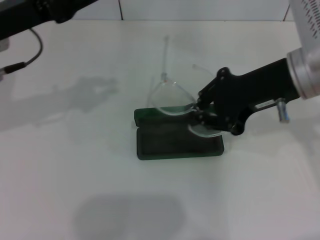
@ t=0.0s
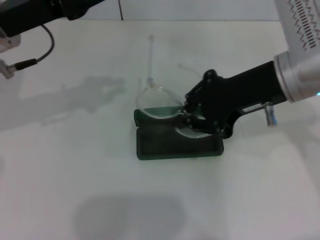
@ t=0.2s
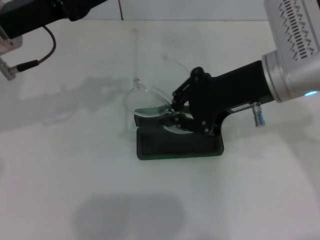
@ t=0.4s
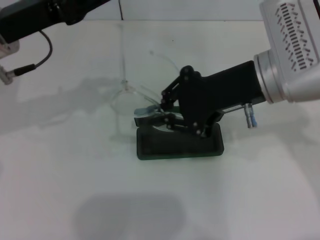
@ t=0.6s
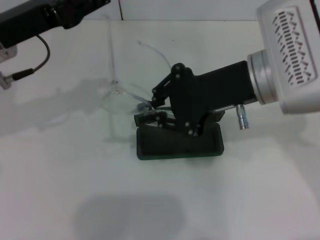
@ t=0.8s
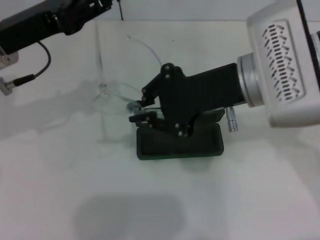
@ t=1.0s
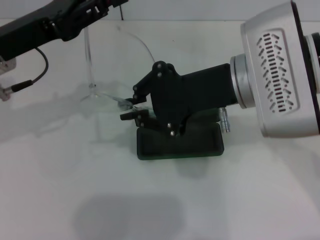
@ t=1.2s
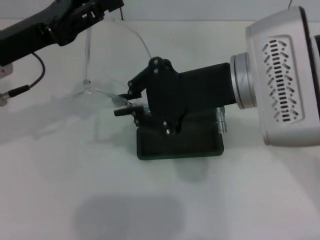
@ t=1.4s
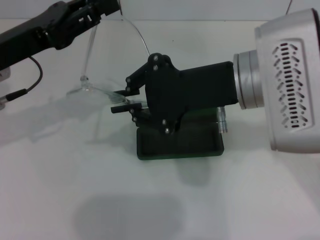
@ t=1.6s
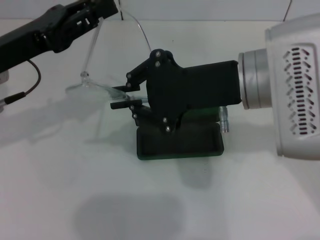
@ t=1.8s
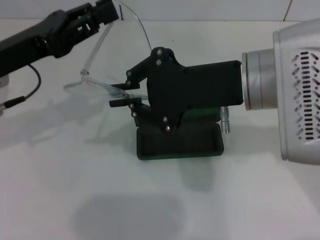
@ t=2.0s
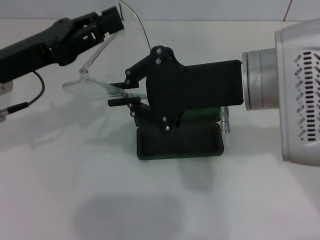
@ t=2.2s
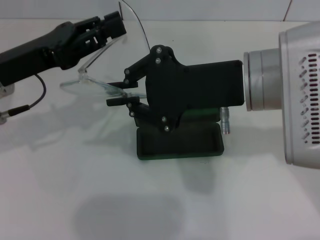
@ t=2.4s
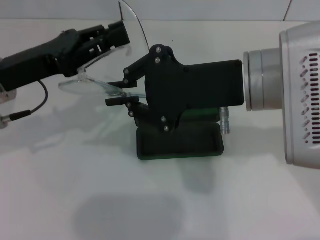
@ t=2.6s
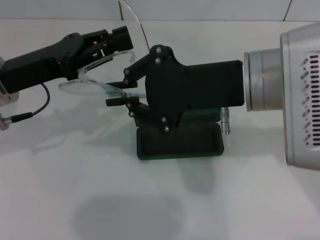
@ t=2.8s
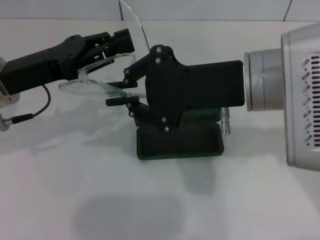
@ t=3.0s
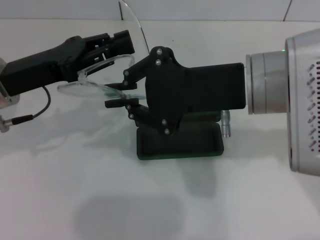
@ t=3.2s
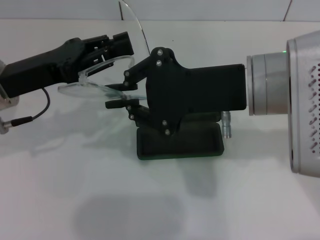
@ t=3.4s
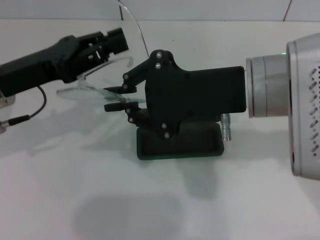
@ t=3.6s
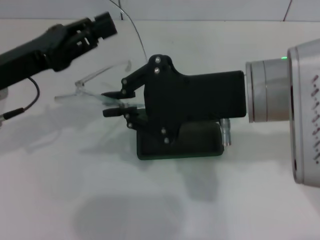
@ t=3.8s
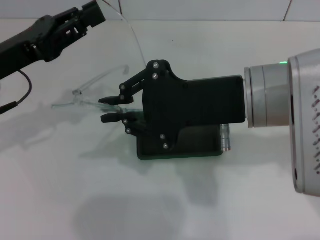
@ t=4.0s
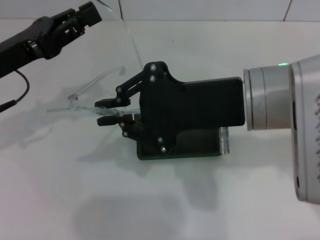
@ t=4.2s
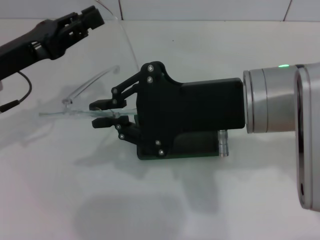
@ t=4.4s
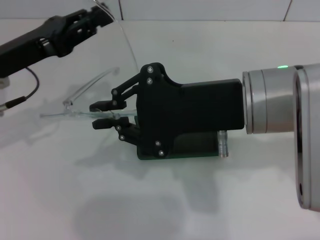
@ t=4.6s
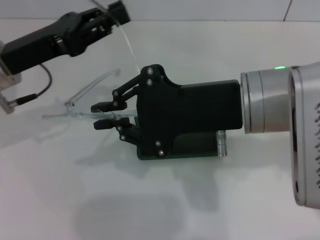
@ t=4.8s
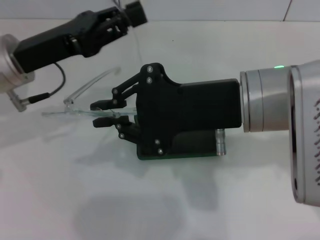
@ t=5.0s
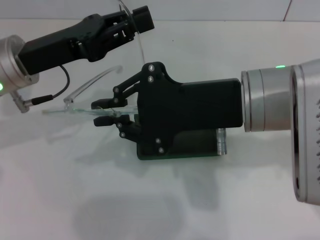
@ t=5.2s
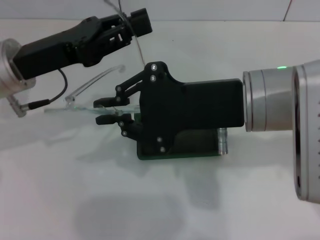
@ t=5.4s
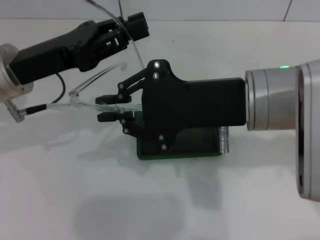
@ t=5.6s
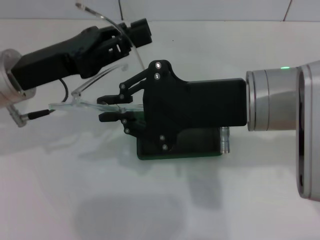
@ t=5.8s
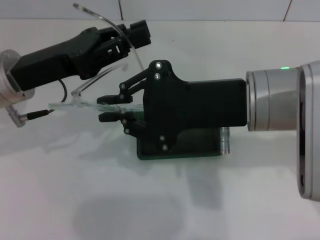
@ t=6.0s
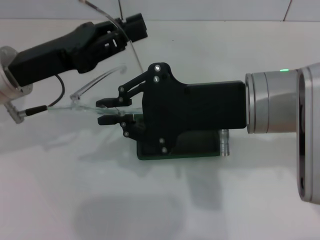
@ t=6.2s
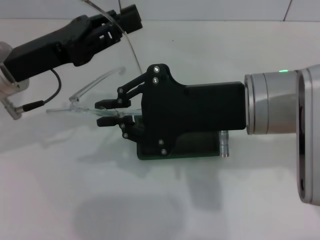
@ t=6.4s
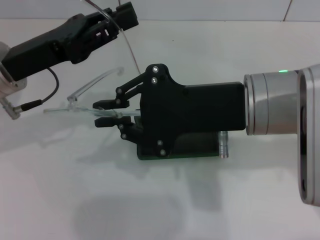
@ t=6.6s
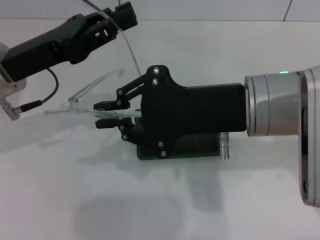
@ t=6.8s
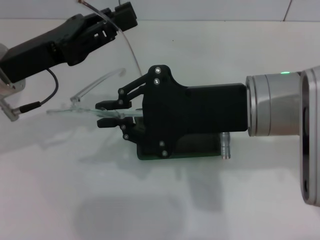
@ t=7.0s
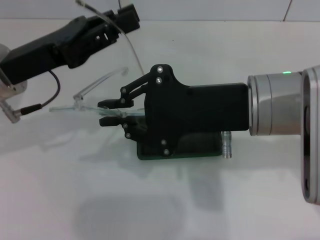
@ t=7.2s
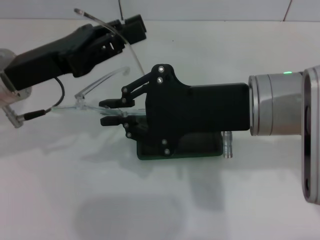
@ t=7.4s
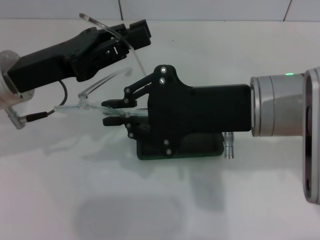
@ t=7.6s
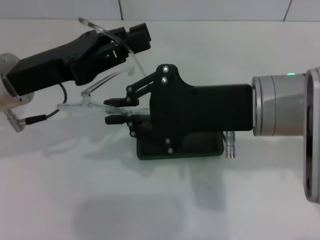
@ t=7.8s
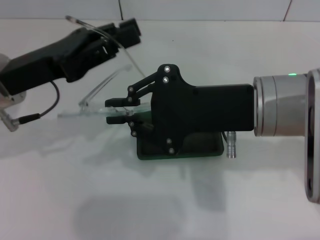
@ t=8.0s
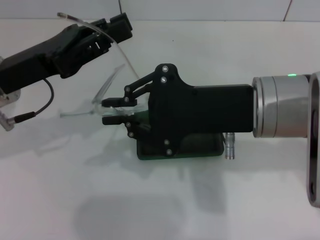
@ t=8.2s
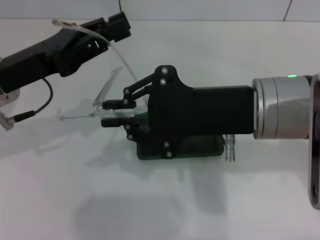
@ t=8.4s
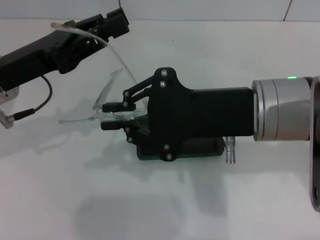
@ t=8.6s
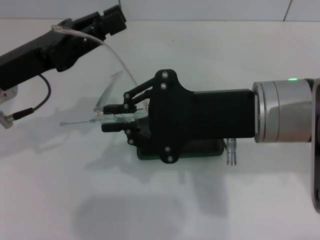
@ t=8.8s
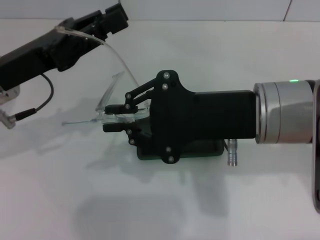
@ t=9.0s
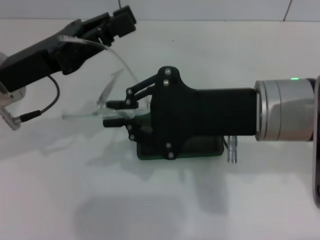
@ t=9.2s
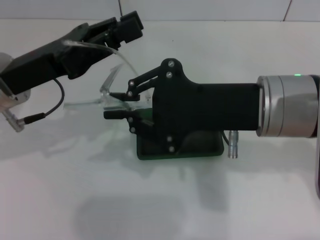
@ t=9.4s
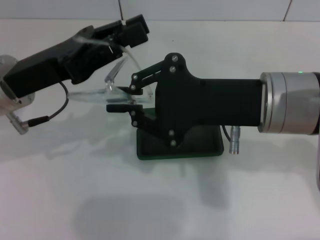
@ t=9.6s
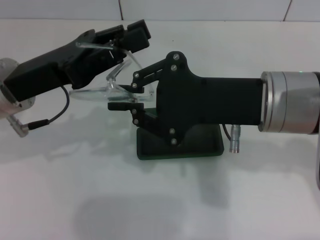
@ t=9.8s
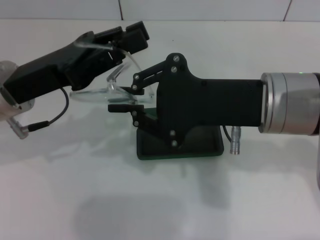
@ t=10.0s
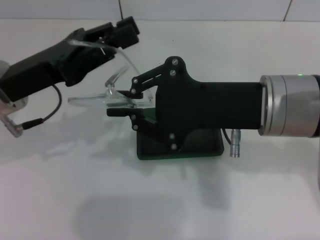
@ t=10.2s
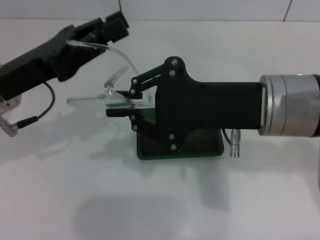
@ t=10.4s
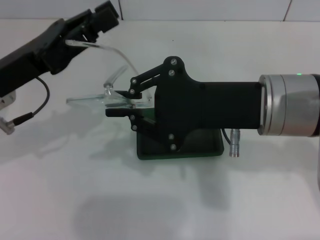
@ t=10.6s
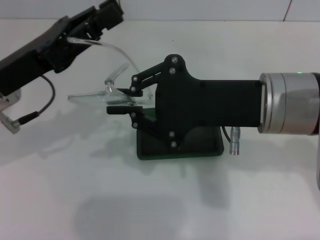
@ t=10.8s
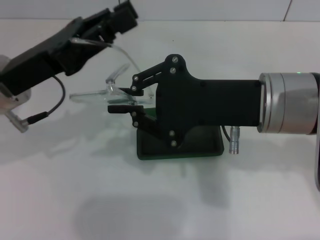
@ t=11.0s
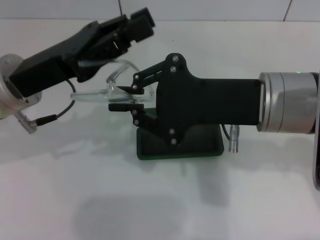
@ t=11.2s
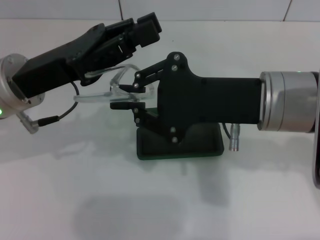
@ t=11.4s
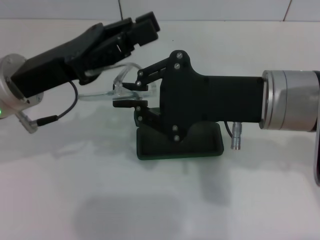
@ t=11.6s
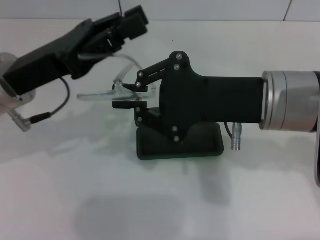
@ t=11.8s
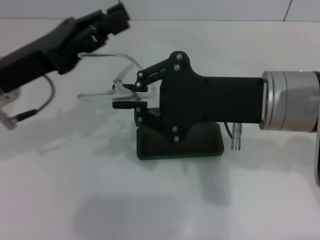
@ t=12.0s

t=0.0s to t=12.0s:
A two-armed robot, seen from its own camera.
Step, t=0.0s to t=11.4s: Fold the frame with your left hand.
t=0.0s to t=1.6s: The right gripper travels to the left by roughly 5 cm.
t=4.4s to t=6.0s: The grippers make only small movements.
t=6.0s to t=12.0s: The grippers make only small movements.

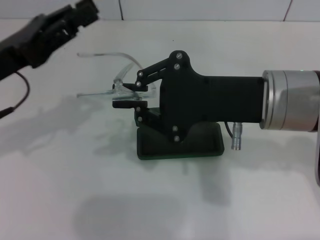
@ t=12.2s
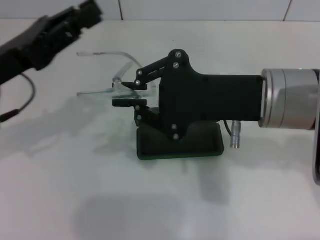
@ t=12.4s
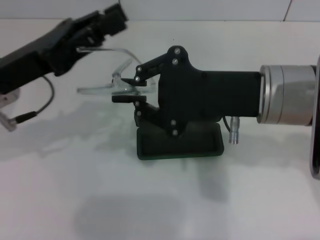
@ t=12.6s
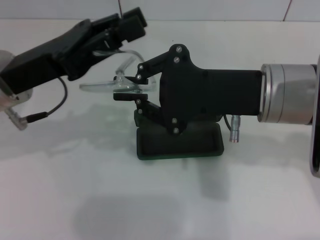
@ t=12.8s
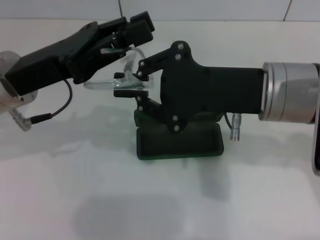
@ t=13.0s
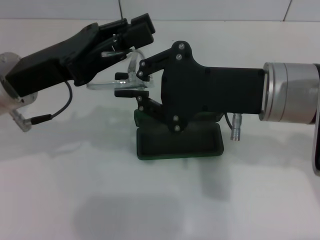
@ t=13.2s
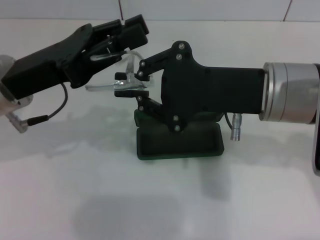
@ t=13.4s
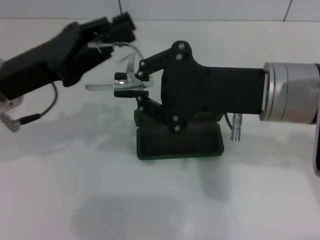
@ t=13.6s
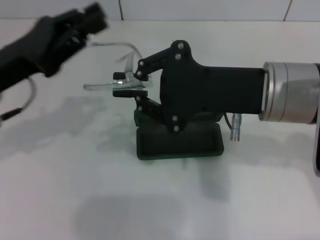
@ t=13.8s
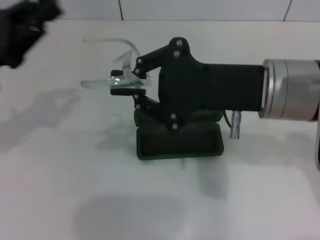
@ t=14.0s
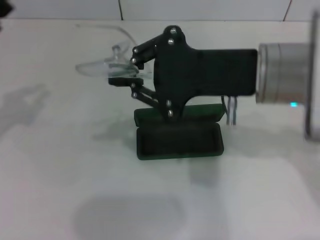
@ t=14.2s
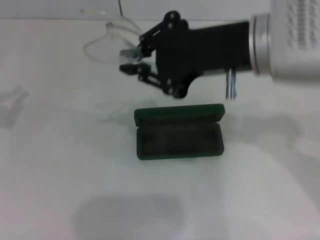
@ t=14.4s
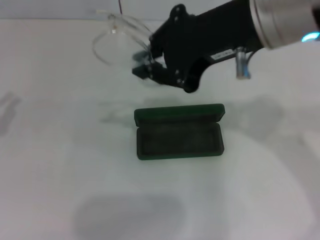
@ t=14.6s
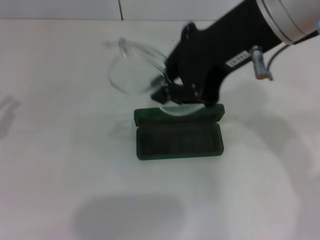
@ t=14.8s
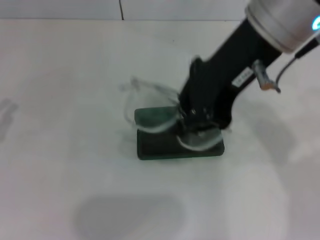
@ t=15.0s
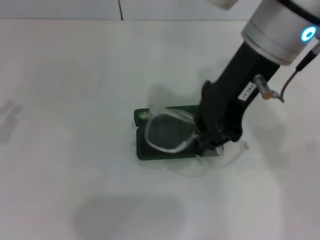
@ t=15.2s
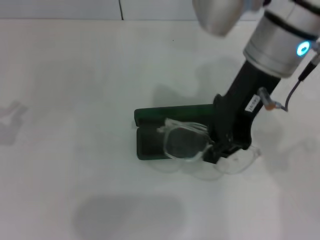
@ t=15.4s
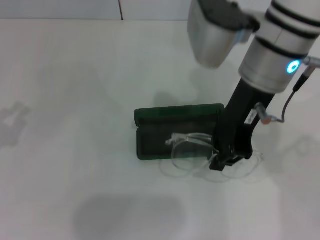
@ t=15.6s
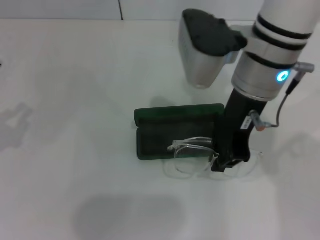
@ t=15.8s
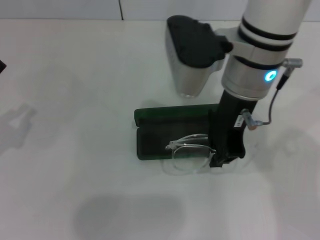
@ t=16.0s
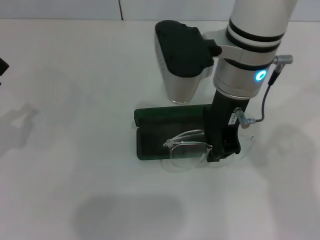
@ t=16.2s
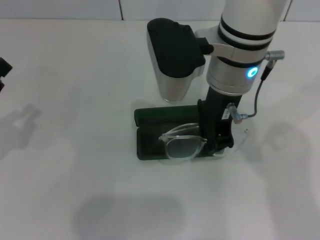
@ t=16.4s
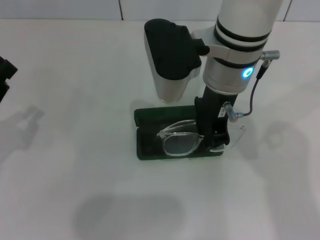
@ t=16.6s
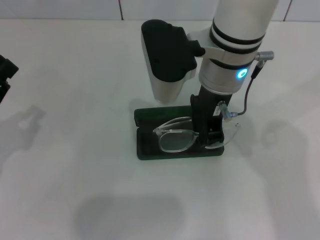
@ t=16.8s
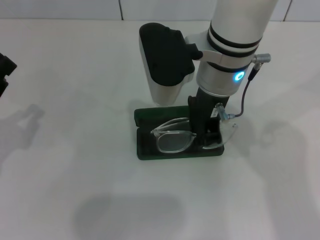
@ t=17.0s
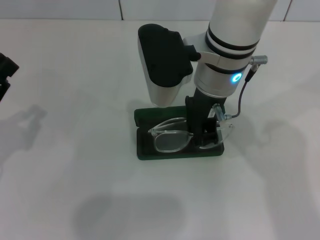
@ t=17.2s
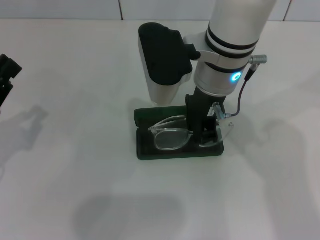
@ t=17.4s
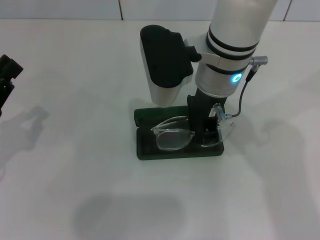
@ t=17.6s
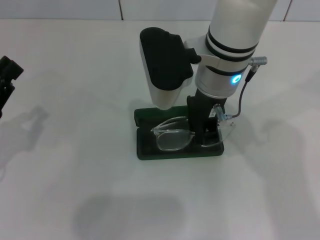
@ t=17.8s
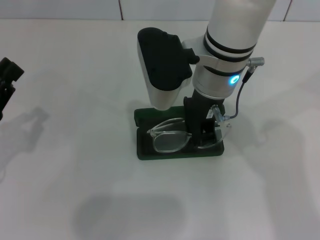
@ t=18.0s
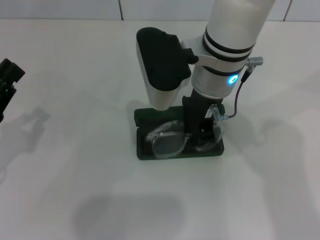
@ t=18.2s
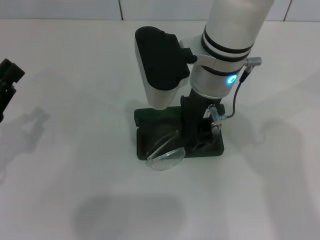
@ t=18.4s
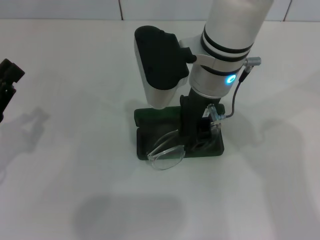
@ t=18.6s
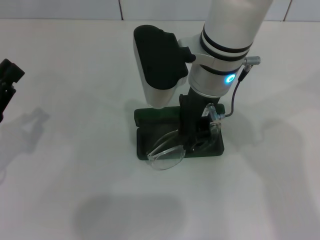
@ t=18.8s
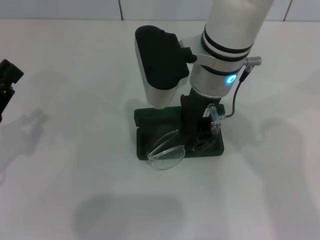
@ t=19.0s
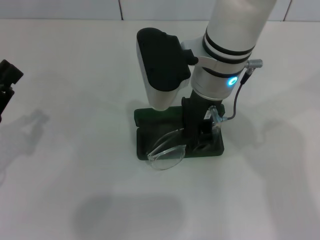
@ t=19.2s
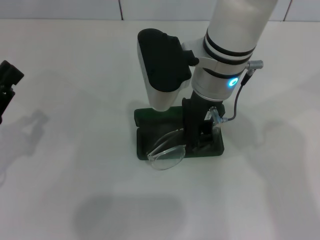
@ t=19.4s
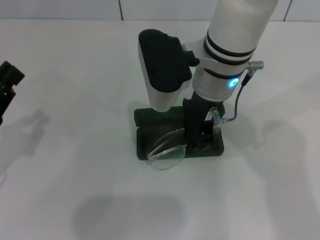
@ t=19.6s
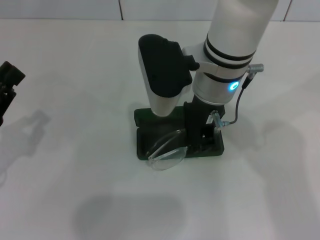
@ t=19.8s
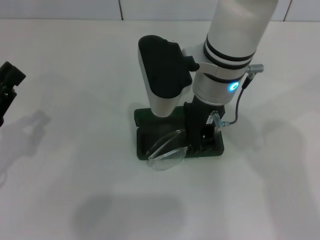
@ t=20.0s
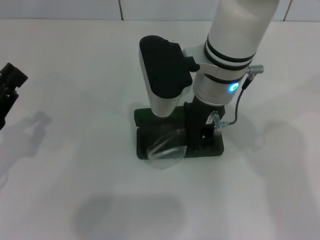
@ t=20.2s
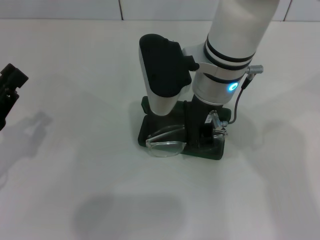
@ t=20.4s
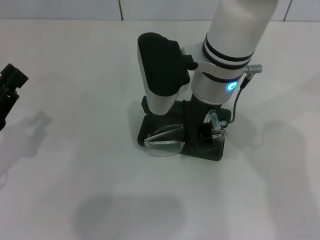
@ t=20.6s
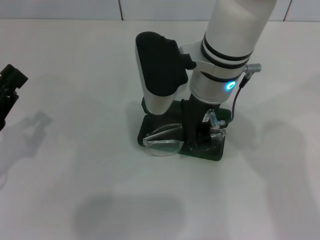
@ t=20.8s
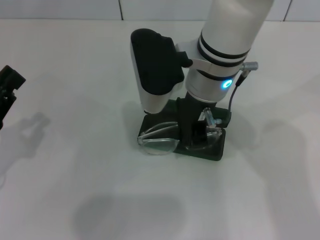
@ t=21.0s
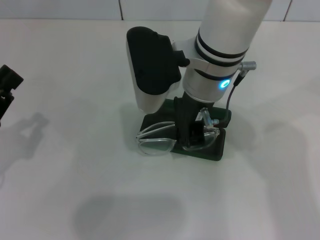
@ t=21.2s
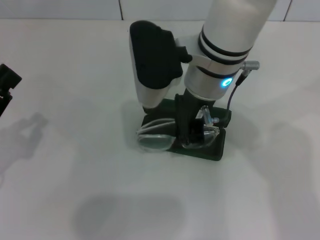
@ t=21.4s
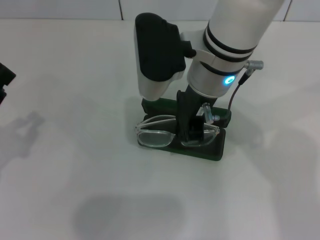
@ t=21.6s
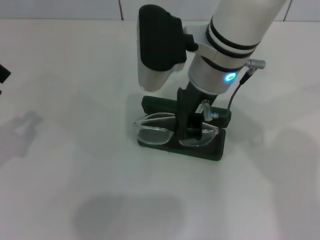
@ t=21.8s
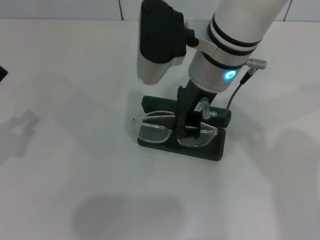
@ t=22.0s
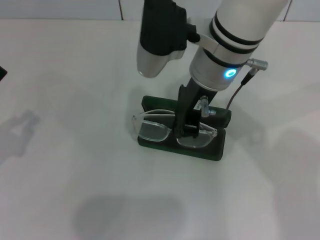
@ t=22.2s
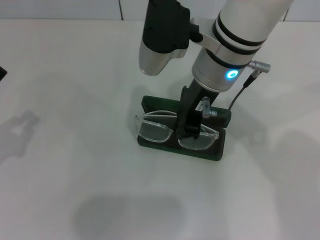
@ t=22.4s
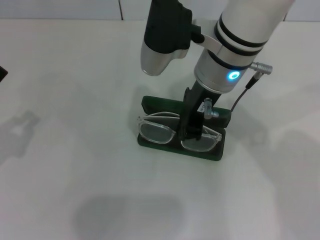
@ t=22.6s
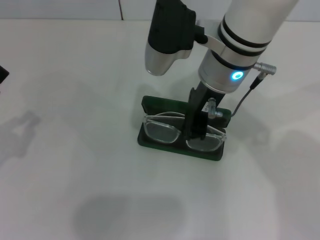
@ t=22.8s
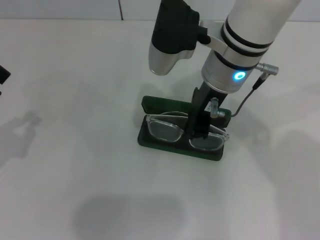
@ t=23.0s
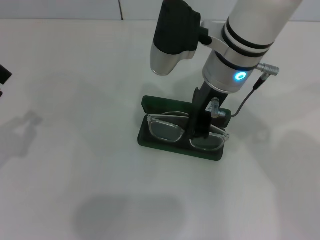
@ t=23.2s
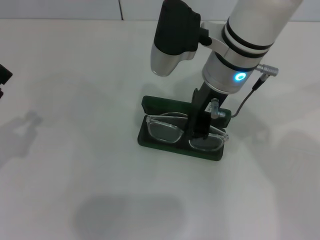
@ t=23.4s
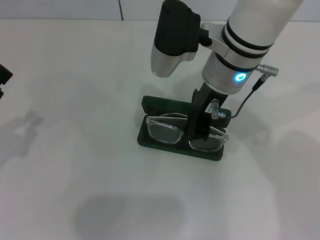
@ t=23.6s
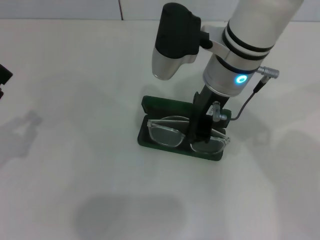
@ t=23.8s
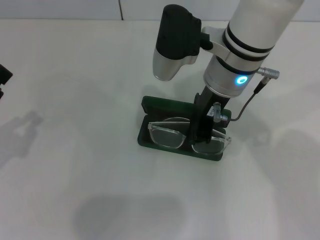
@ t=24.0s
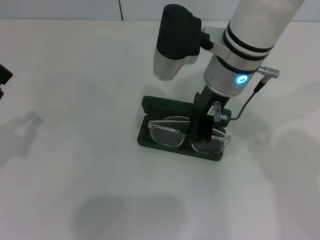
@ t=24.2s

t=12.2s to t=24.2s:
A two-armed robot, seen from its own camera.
t=12.2s to t=13.8s: The grippers stay close to where they were, moving slightly.
t=13.8s to t=15.2s: The left gripper heads to the left and backward, covering some 15 cm, while the right gripper is displaced upward and forward by approximately 10 cm.
t=15.2s to t=16.6s: The right gripper travels downward by some 5 cm.
t=16.6s to t=18.2s: There are only small adjustments of the grippers.
t=18.2s to t=19.8s: The two grippers keep their place.
t=19.8s to t=21.2s: The grippers stay close to where they were, moving slightly.
t=21.2s to t=22.6s: The grippers stay close to where they were, moving slightly.
t=22.6s to t=24.2s: The grippers move only a little.
